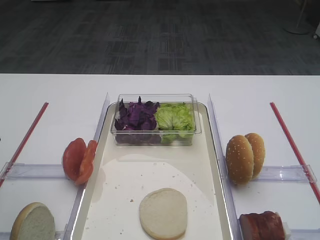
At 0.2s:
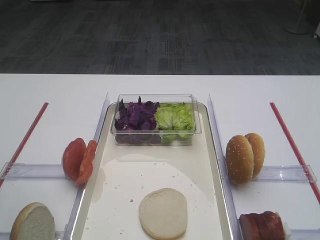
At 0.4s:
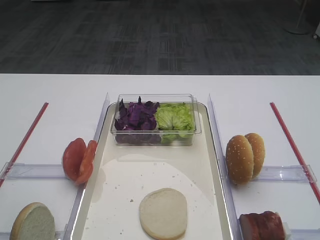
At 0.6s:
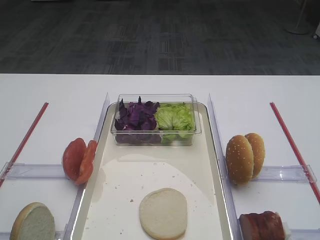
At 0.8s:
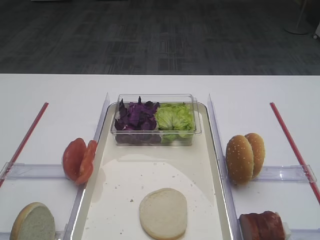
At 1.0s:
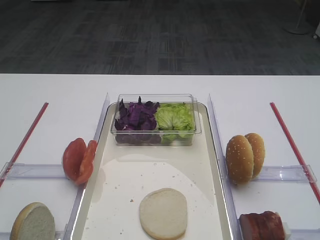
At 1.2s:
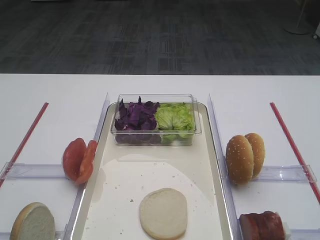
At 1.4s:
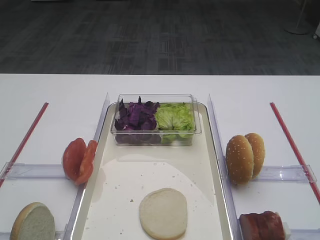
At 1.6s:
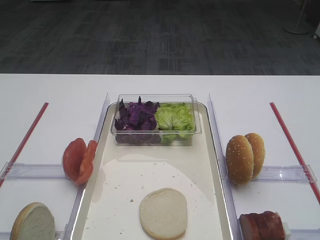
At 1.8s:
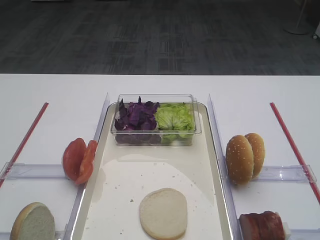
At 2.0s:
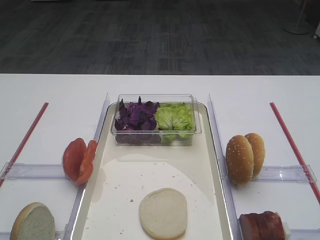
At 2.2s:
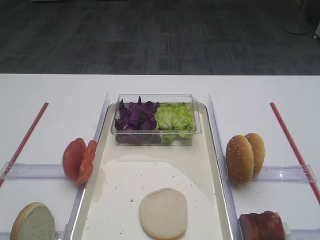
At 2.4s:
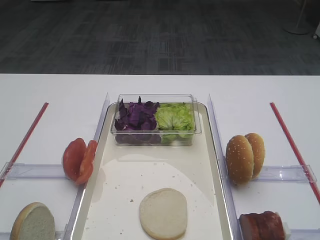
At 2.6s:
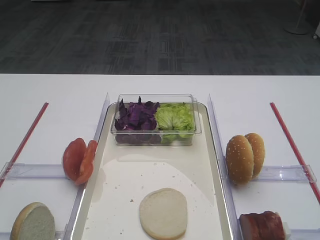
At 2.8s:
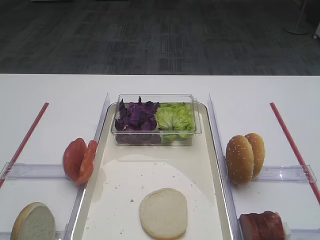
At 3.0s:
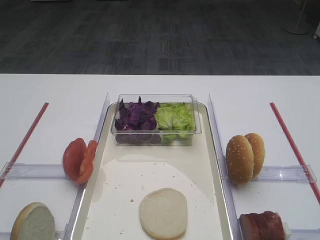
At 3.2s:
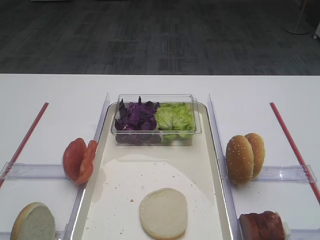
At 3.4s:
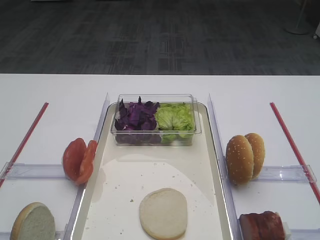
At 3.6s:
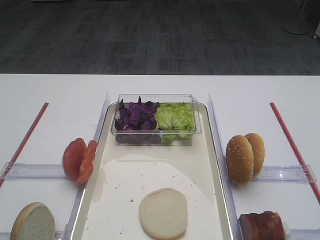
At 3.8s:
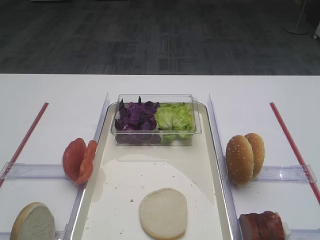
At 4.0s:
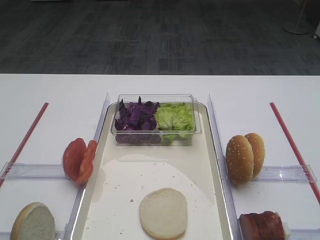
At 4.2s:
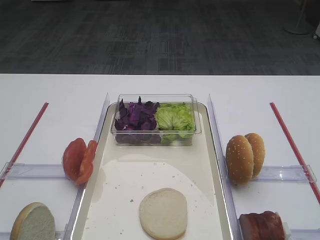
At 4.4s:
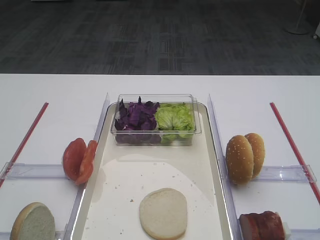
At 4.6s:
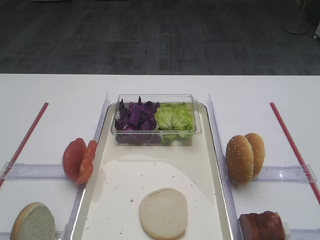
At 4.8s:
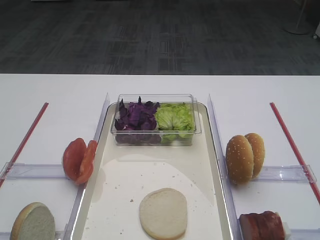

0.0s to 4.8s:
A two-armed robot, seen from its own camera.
3.2s to 4.8s: Neither gripper changes place.

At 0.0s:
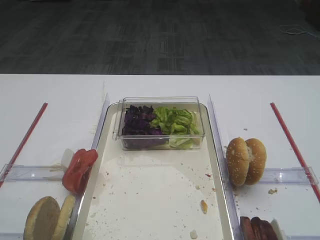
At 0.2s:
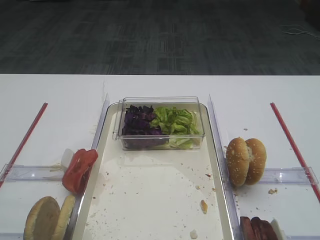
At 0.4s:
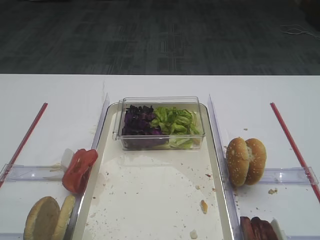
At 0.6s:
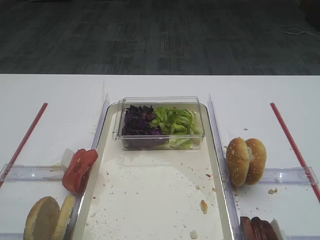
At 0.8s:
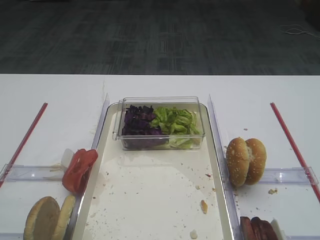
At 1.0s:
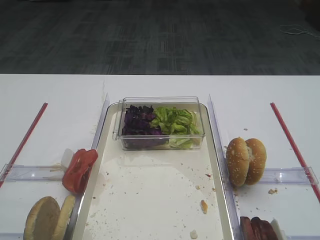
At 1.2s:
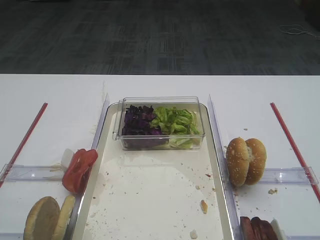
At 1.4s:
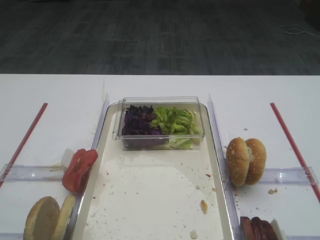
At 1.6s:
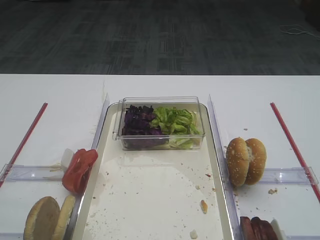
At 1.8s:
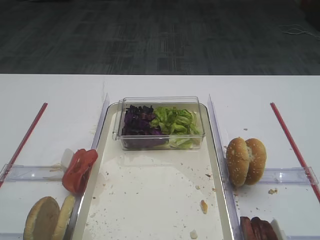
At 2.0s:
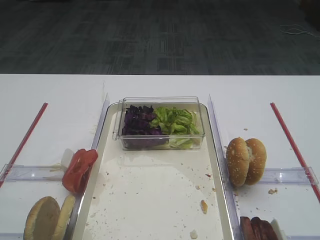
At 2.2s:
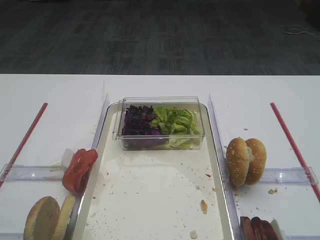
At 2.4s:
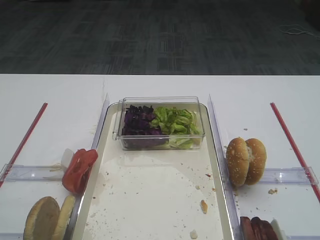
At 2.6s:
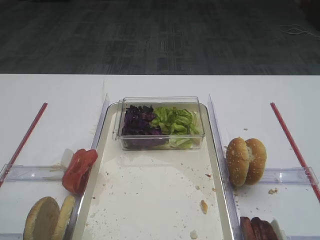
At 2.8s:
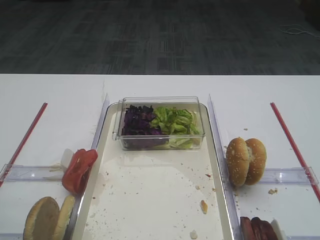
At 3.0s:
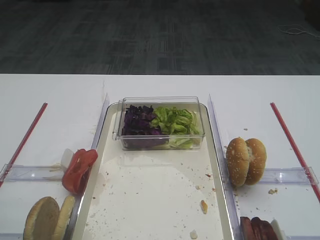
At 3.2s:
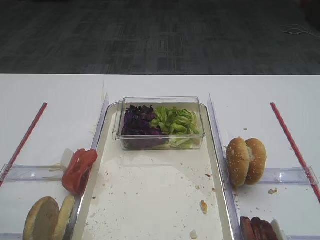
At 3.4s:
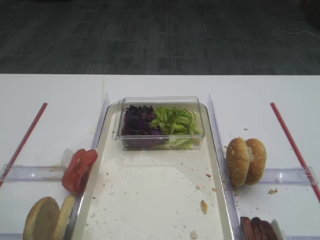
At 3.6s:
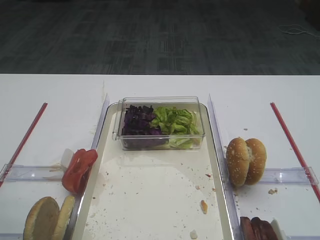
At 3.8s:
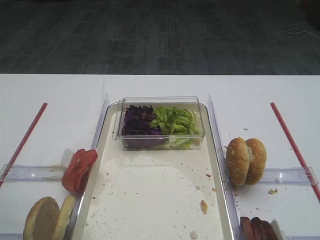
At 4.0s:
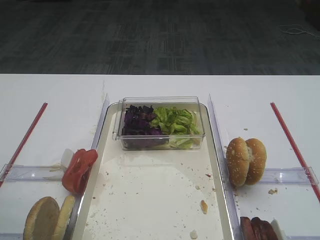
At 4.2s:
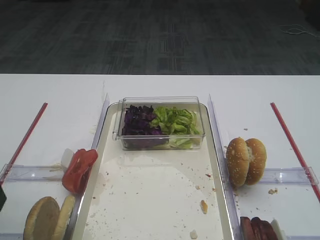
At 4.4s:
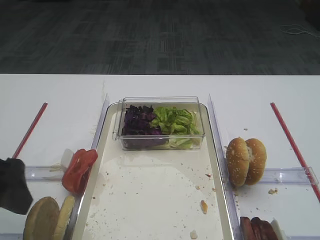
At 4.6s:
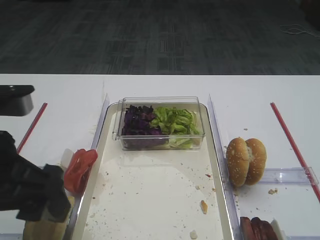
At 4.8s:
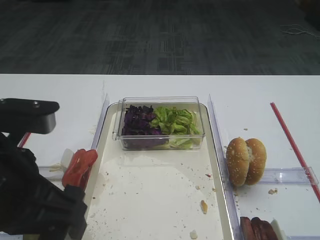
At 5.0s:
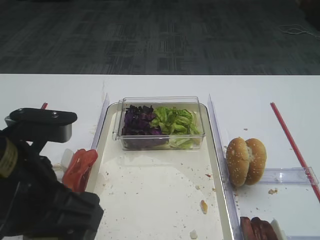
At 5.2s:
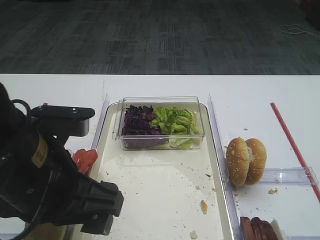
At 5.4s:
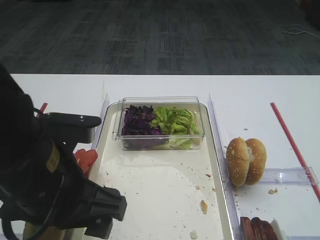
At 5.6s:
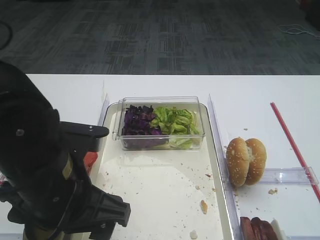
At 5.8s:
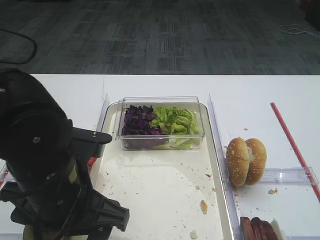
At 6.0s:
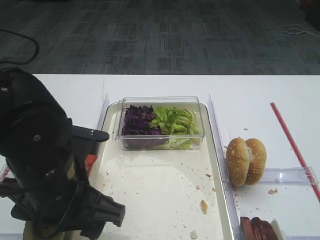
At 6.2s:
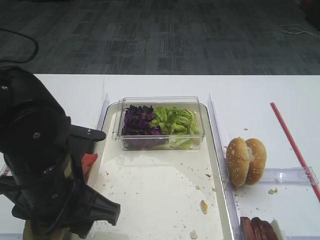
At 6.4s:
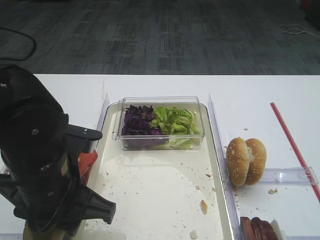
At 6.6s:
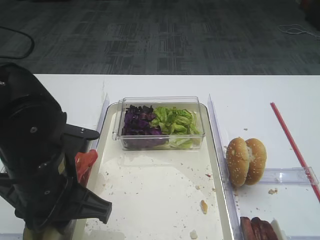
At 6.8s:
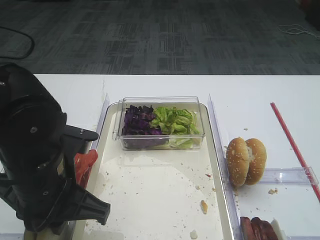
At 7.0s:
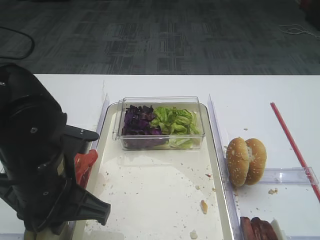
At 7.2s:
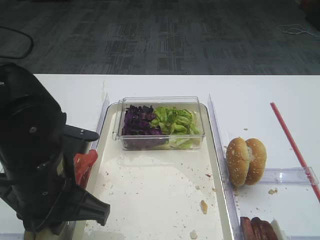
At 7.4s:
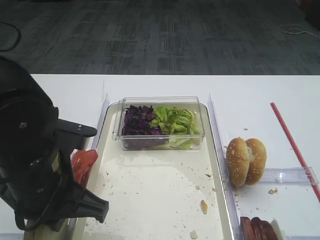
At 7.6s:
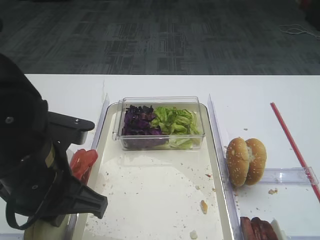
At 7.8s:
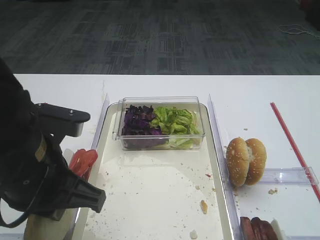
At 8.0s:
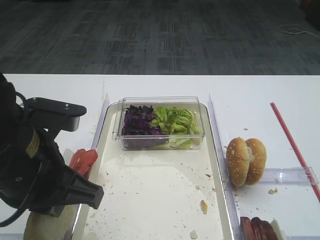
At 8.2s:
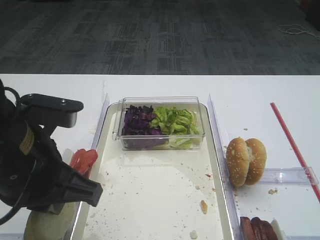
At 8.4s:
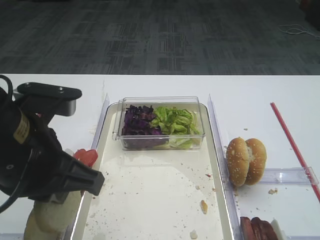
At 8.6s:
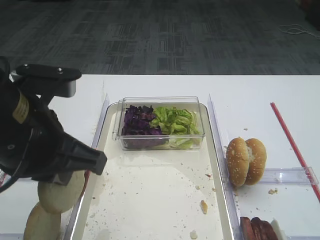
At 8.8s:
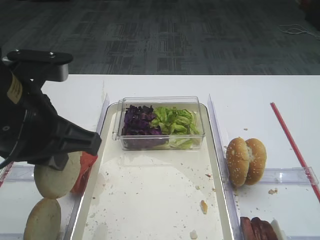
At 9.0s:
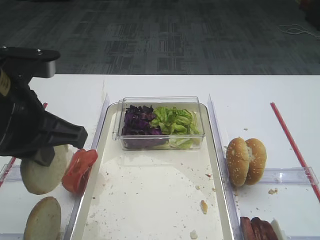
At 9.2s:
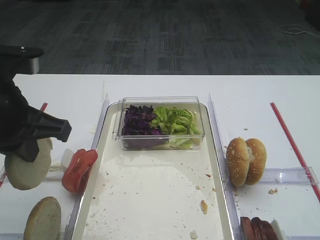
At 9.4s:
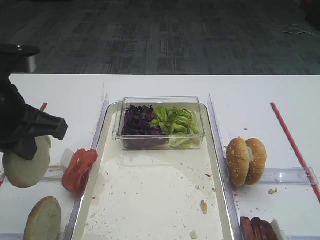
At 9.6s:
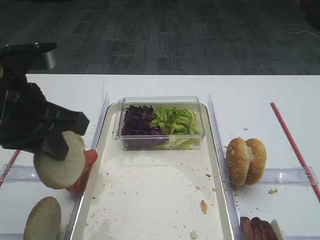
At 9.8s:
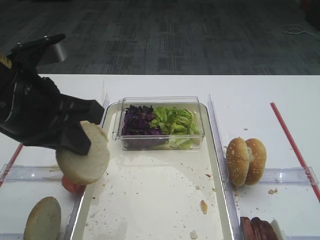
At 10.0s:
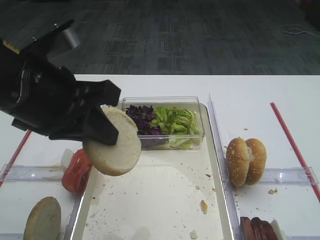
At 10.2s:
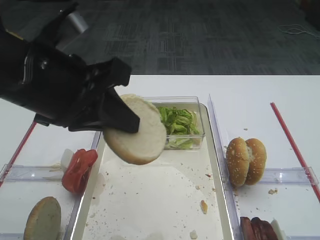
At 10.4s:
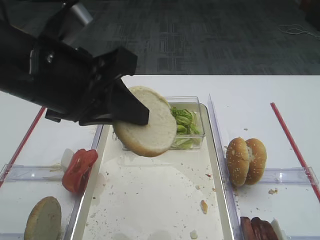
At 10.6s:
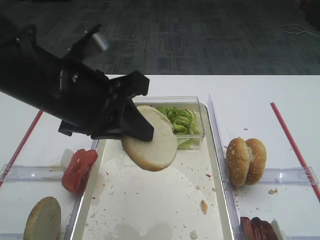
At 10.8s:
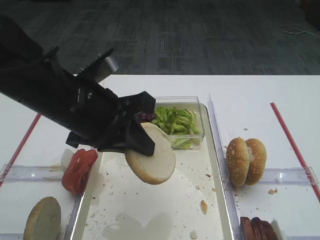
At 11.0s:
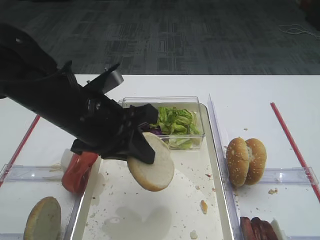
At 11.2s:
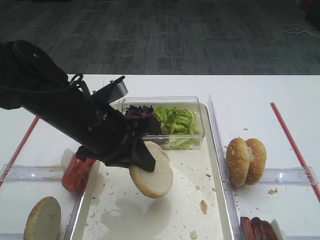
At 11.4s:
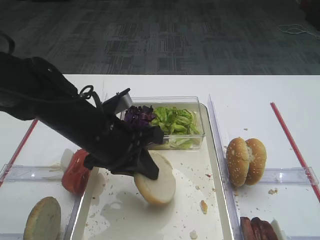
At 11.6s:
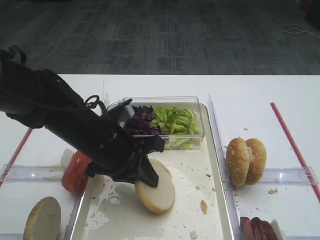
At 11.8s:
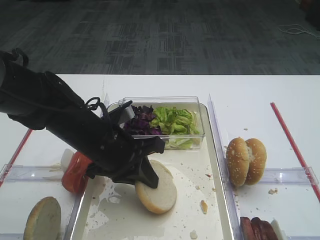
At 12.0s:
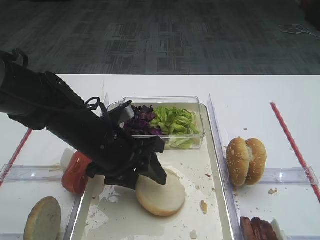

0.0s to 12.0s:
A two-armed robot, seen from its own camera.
Step, 0.0s to 8.2s: Pick up the bread slice with the left gripper.
3.0s to 4.4s: The left gripper is displaced to the right by some 5 cm.
4.4s to 6.0s: The left gripper is displaced to the right and downward by approximately 15 cm.
6.0s to 7.6s: The left gripper closes.
7.6s to 9.0s: The left gripper is displaced upward by about 5 cm.
10.4s to 12.0s: The left gripper travels downward and forward by some 15 cm, and opens.

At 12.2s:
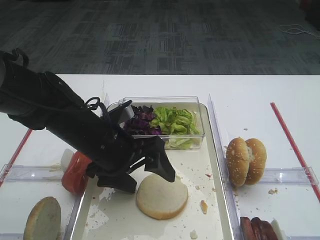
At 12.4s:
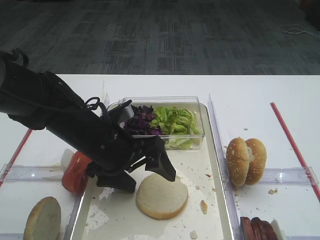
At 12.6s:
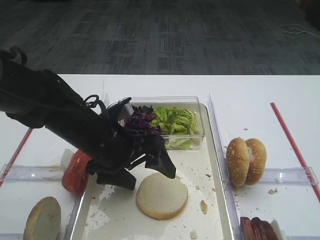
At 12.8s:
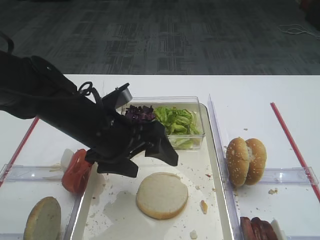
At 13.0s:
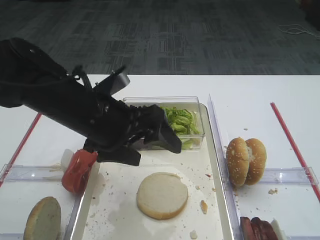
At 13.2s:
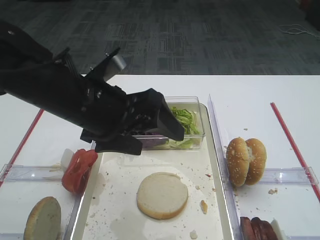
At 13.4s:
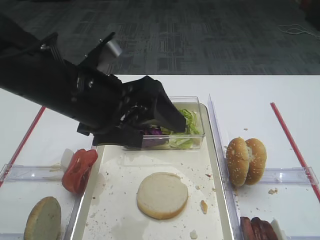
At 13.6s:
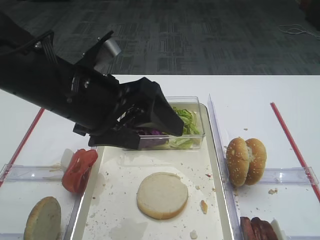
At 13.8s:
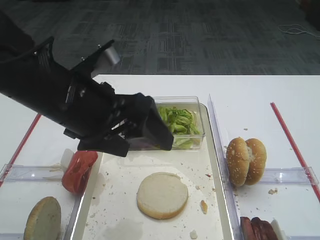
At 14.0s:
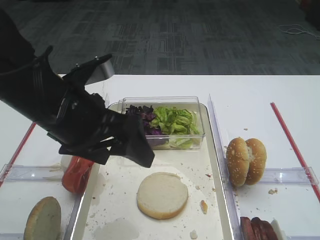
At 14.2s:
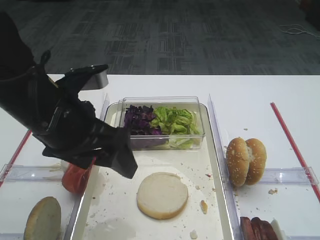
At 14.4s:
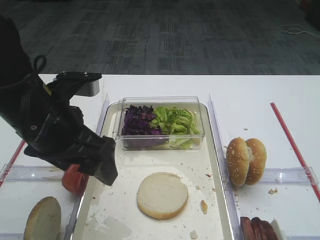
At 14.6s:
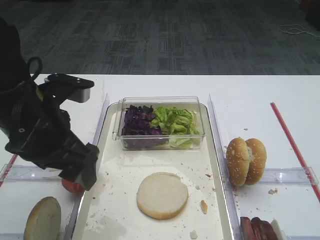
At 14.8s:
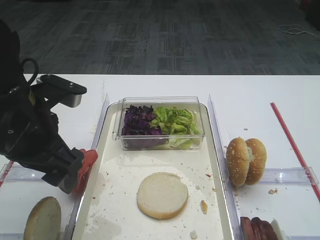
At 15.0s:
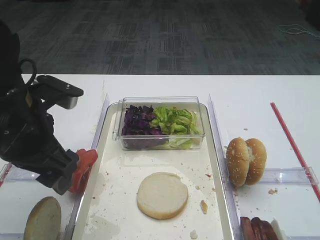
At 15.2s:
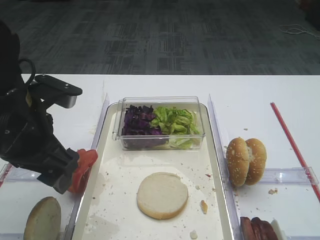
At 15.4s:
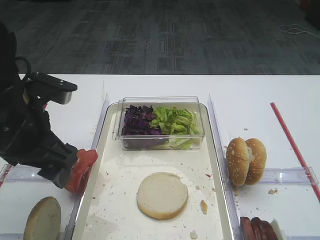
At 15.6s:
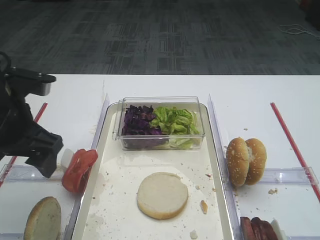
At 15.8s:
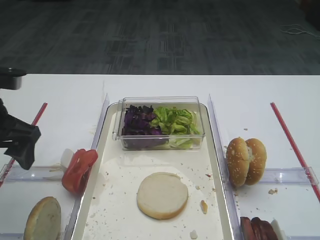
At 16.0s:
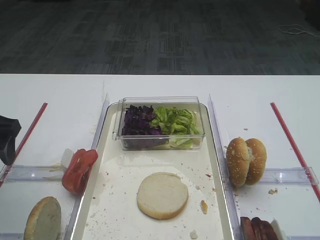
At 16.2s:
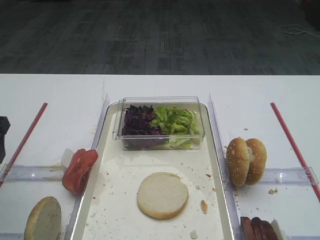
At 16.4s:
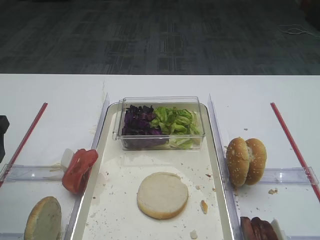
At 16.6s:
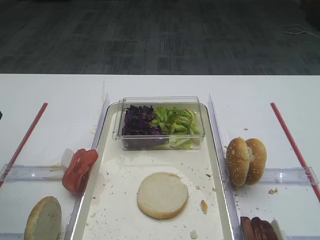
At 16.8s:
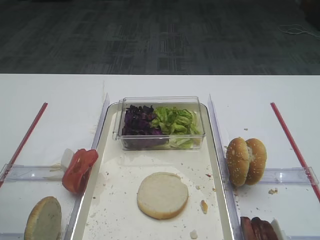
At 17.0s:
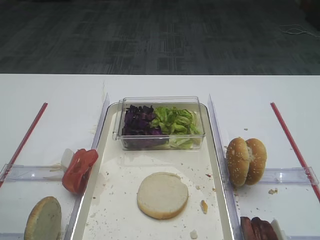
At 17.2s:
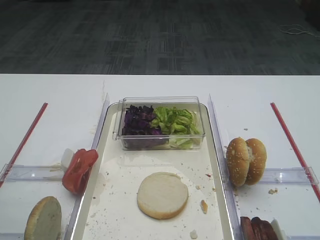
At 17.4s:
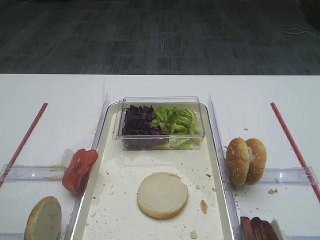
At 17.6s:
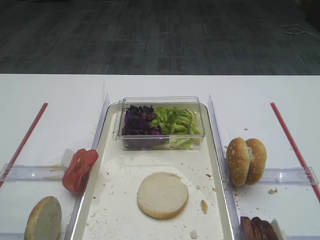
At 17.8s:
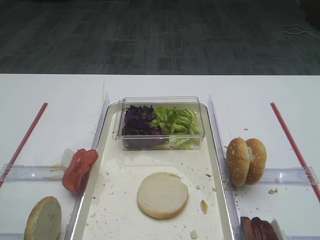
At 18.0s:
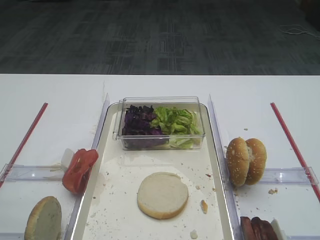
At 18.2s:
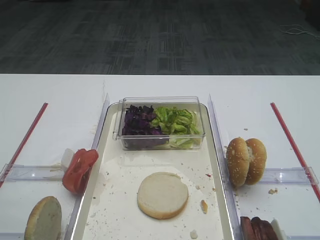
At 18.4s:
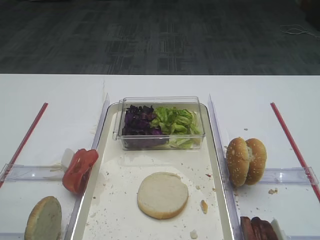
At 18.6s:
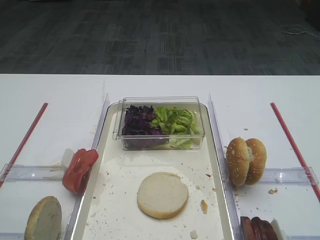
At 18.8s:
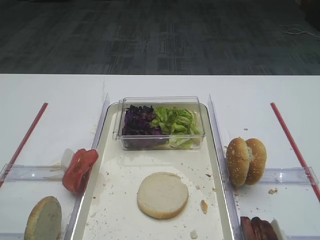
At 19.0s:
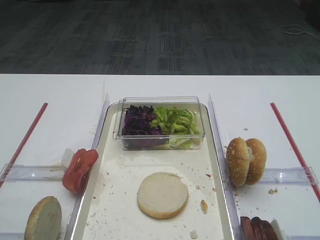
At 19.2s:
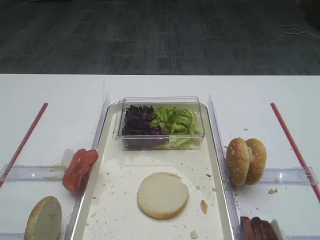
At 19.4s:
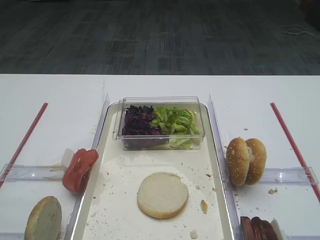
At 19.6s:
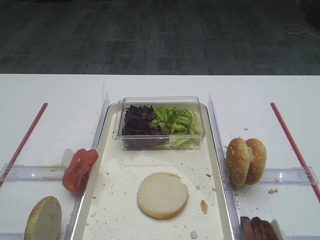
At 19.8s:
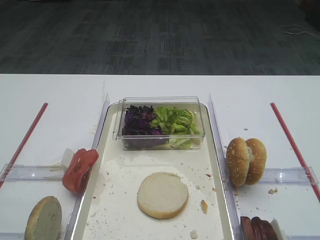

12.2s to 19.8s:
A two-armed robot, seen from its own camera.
12.2s to 13.8s: The left gripper is displaced upward by some 10 cm.
13.8s to 15.2s: The left gripper goes approximately 5 cm to the left.
15.2s to 16.8s: The left gripper goes approximately 10 cm to the left.
